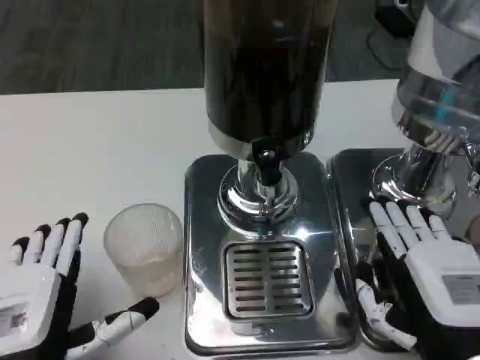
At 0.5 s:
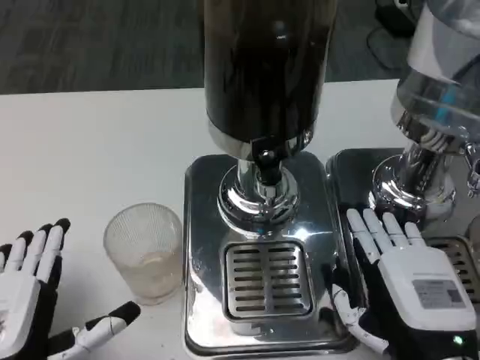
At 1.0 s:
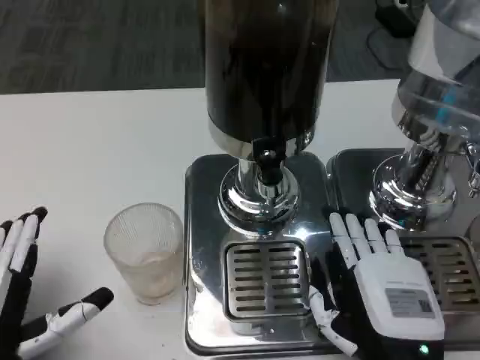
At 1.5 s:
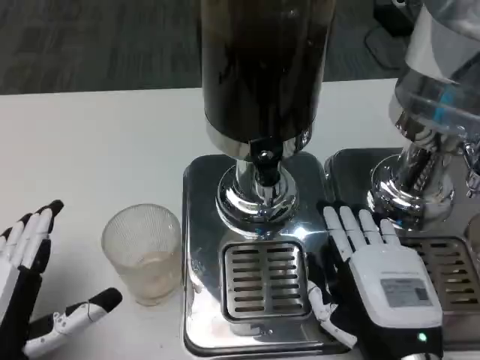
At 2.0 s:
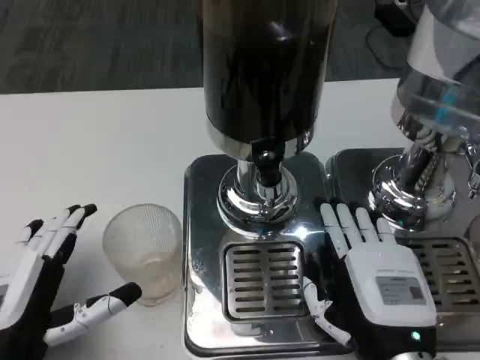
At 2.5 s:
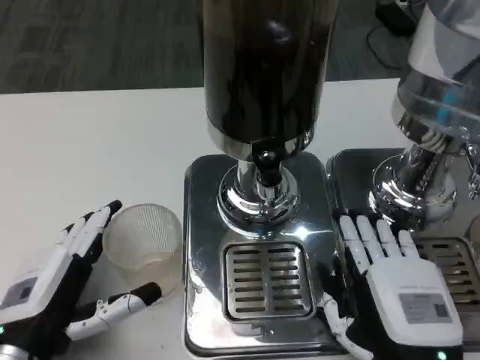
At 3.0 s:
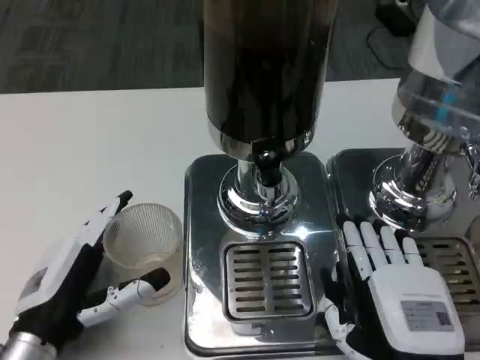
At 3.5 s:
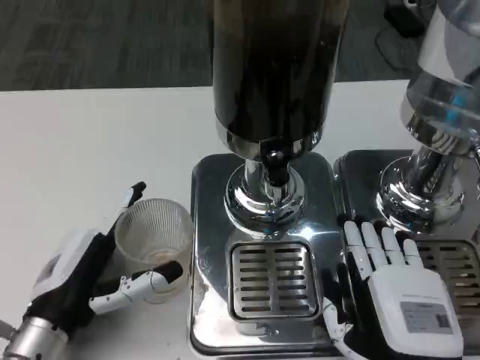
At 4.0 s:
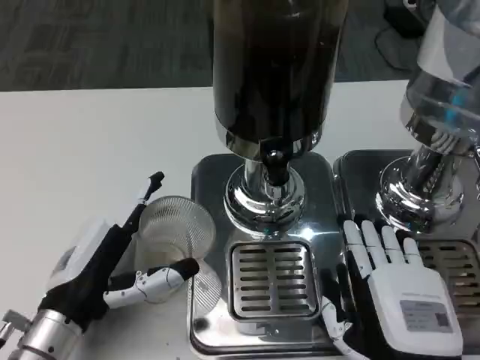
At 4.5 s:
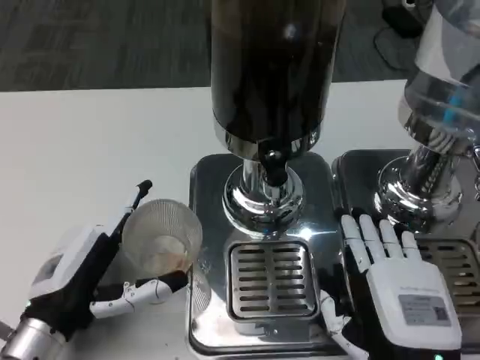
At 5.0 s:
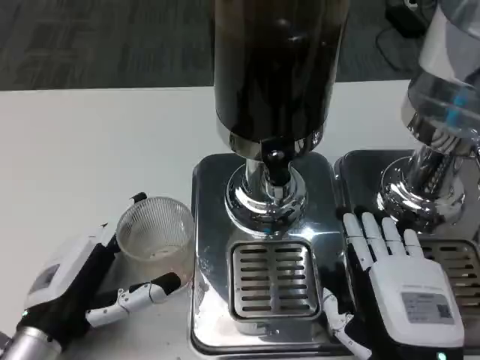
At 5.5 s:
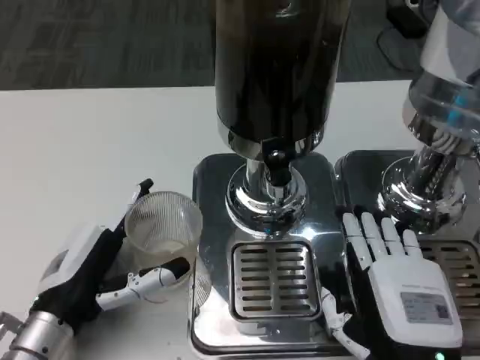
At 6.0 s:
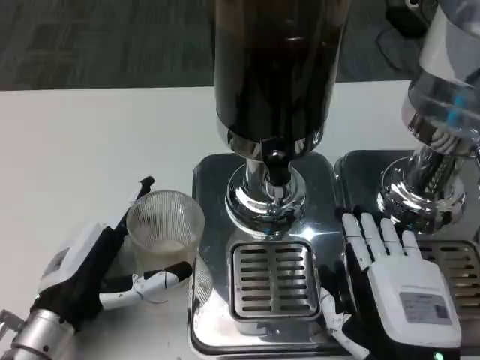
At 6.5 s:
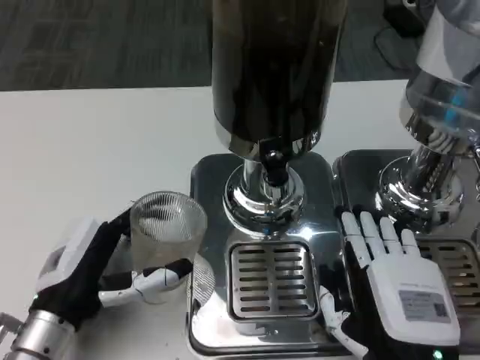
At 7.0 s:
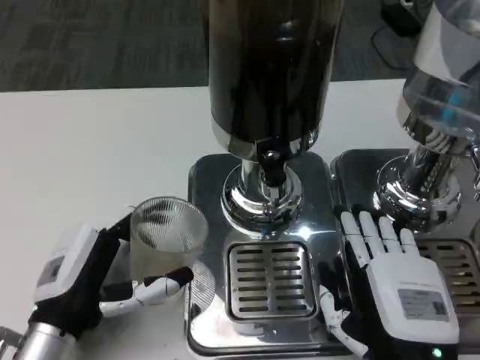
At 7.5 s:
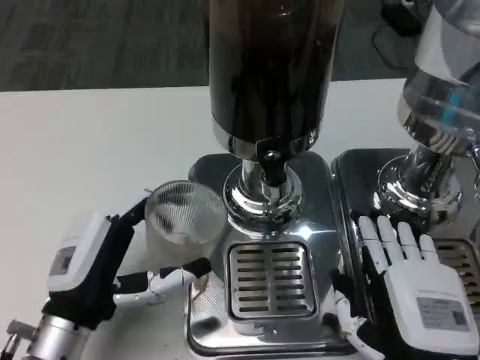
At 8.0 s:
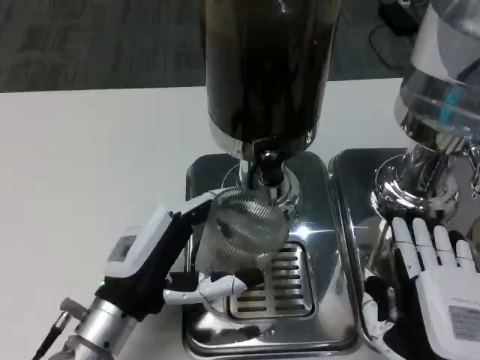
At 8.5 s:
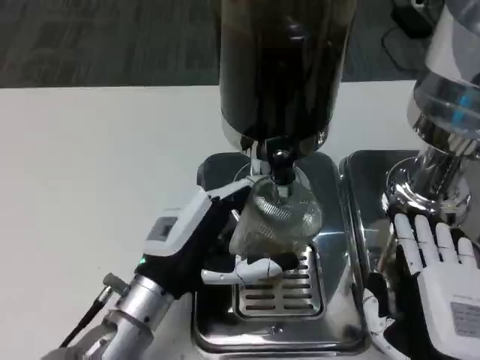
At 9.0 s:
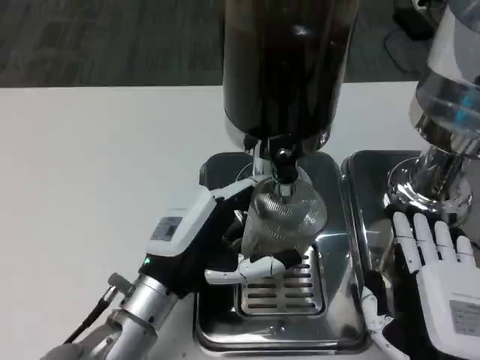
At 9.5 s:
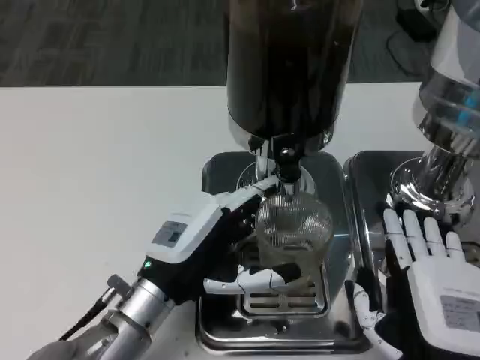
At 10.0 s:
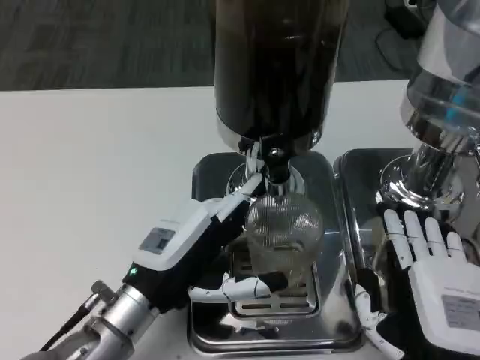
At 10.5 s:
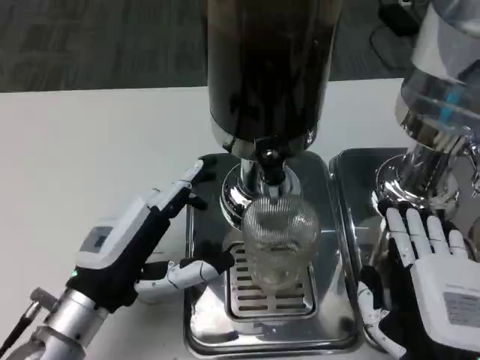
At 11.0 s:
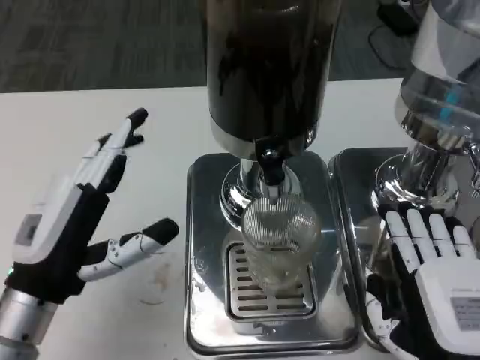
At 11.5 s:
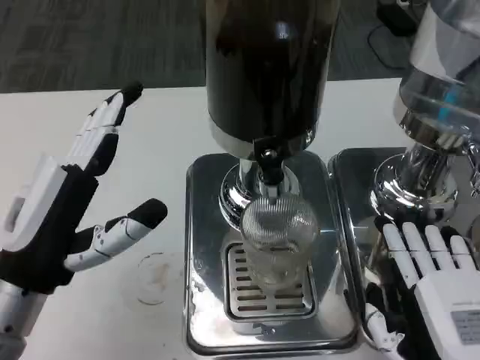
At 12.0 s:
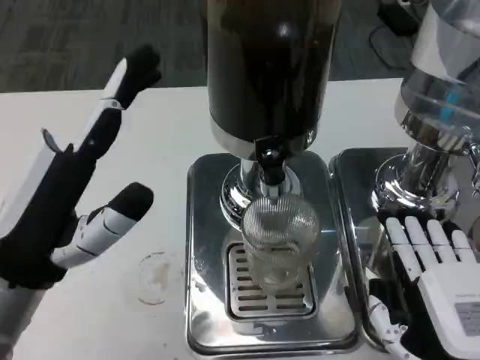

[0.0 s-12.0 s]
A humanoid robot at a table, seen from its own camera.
Task of the whole recording: Grasp the cup under the faucet to collect the drink, then remove the cup.
0.0 to 2.0 s: The right hand moves to the left, roughly 5 cm. Meanwhile the left hand changes place by roughly 5 cm.
2.0 to 4.0 s: The left hand shifts roughly 5 cm forward.
4.0 to 6.0 s: There are only small adjustments of the hands.
6.0 to 8.0 s: The left hand shifts approximately 5 cm to the right.
10.0 to 12.0 s: The left hand heads upward and to the left, covering approximately 10 cm.

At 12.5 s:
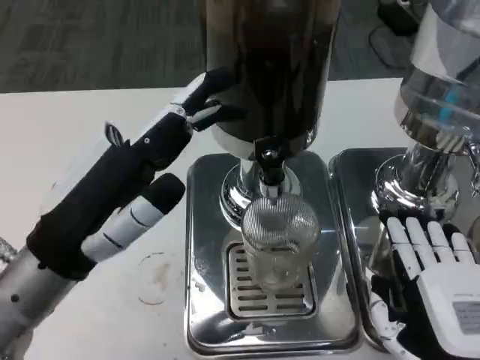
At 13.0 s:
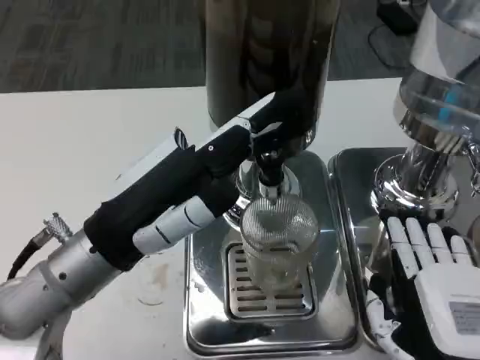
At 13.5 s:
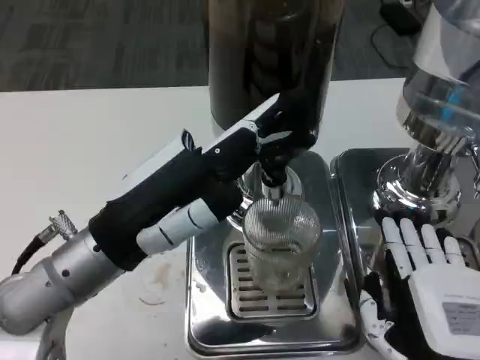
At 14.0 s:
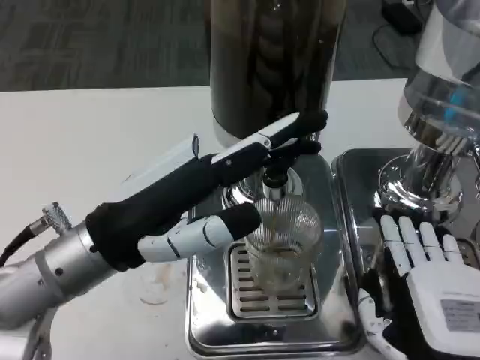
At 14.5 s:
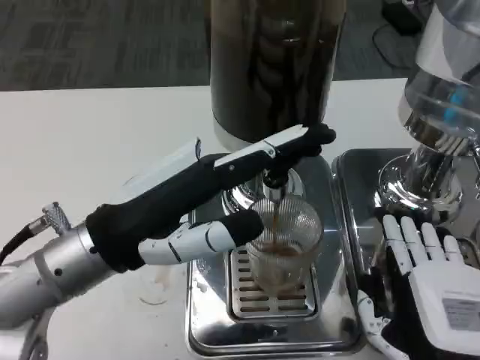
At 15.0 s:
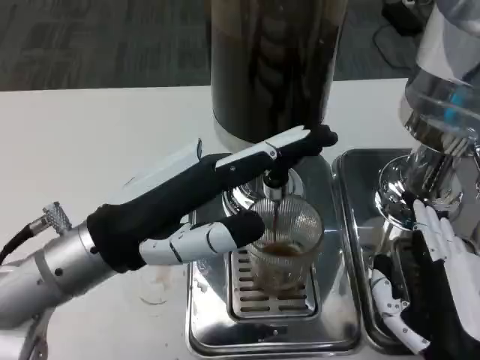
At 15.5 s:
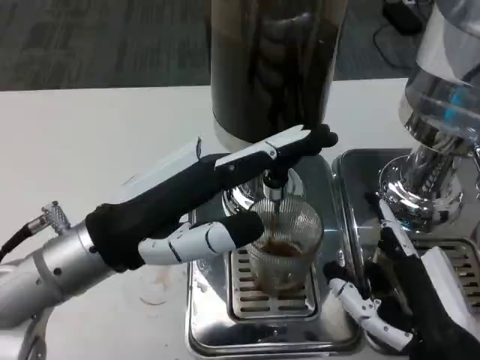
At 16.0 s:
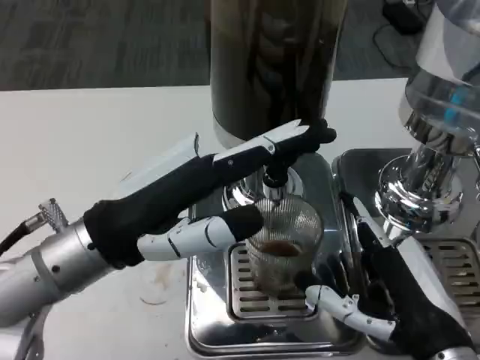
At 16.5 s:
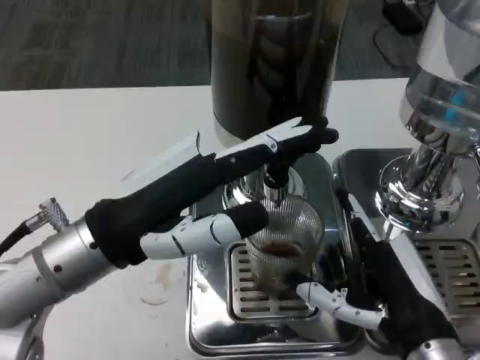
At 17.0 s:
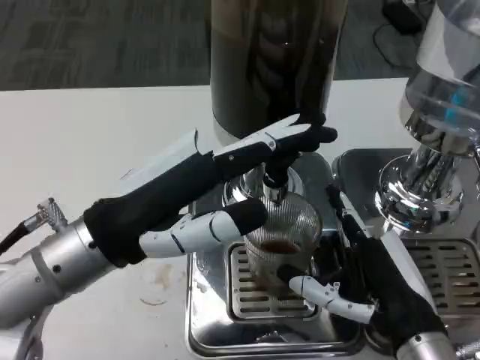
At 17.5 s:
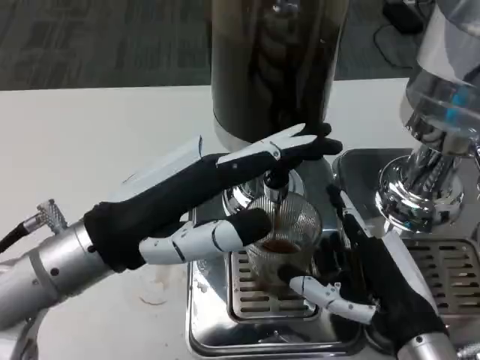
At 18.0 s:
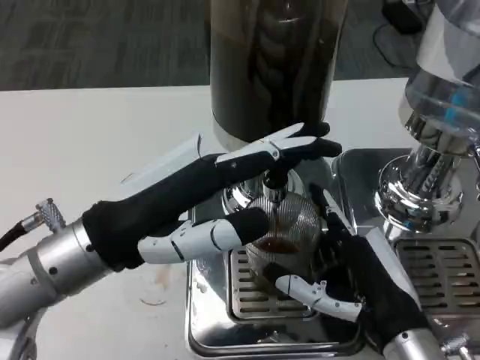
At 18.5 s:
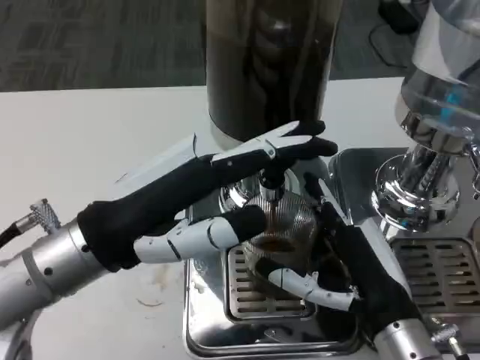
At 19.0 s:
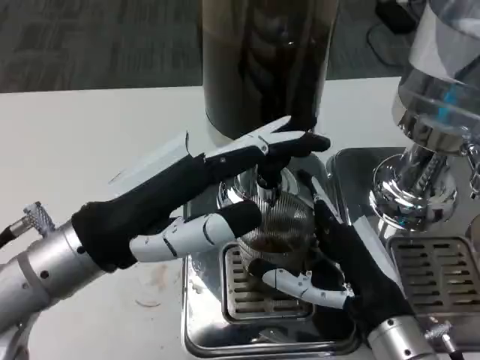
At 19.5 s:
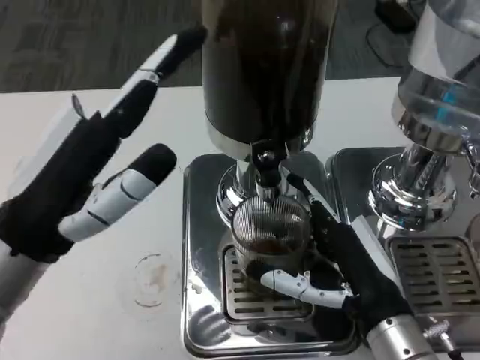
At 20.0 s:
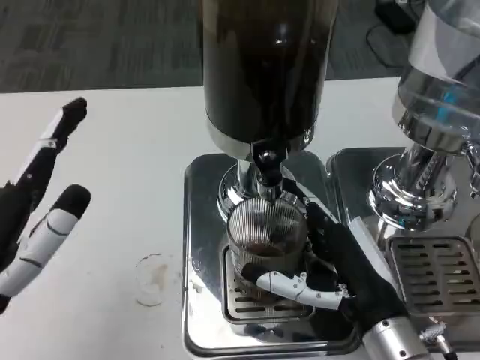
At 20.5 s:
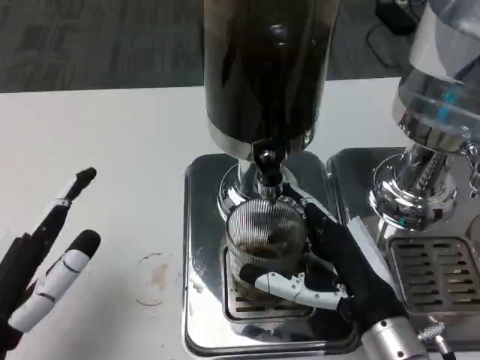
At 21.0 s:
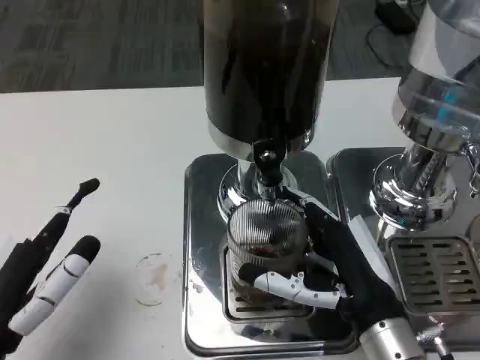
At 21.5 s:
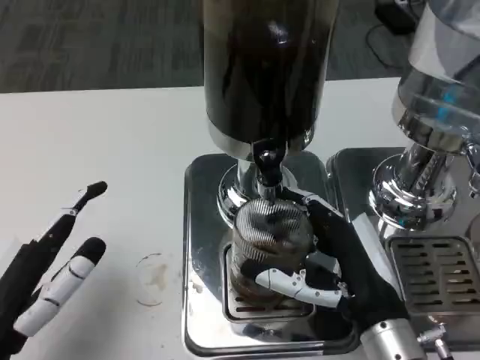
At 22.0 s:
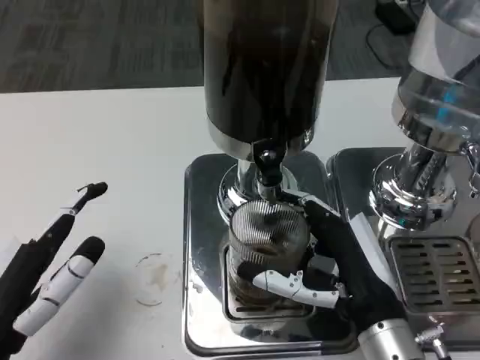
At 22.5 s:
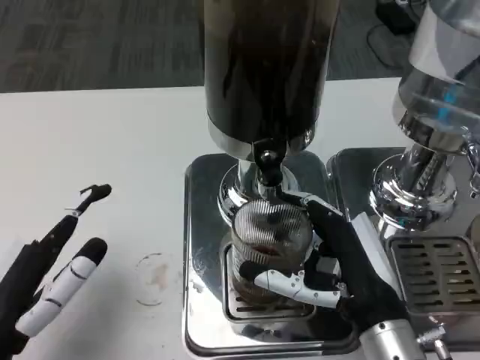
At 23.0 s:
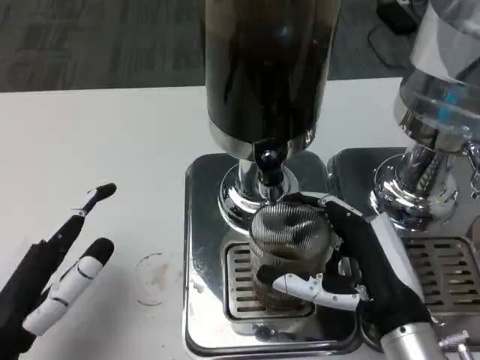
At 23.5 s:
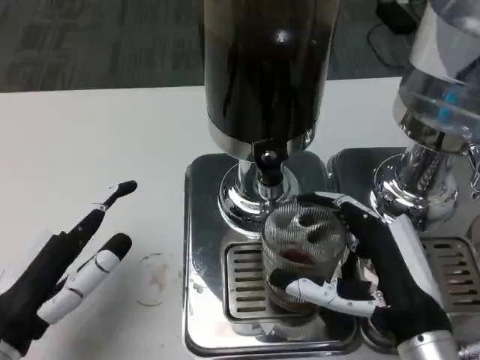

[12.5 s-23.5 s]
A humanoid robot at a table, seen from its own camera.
Task of the whole recording: Grasp the cup under the faucet to collect the drink, then remove the cup.
16.0 to 18.0 s: The hands make only small movements.
18.0 to 20.0 s: The left hand shifts about 10 cm backward and to the left.
20.0 to 21.5 s: The hands make only small movements.

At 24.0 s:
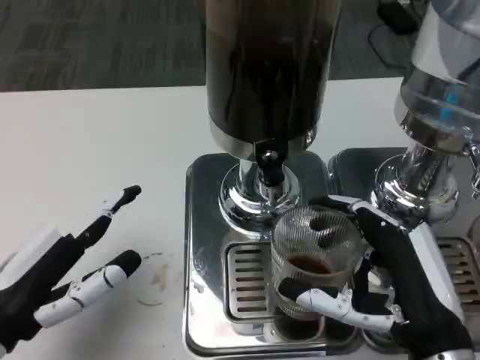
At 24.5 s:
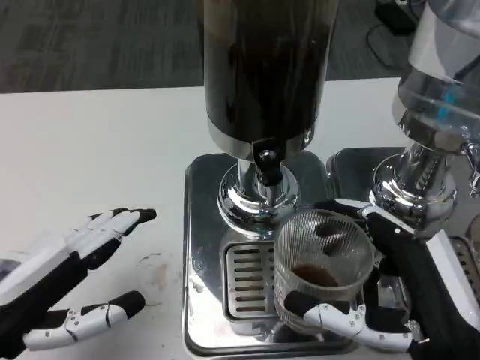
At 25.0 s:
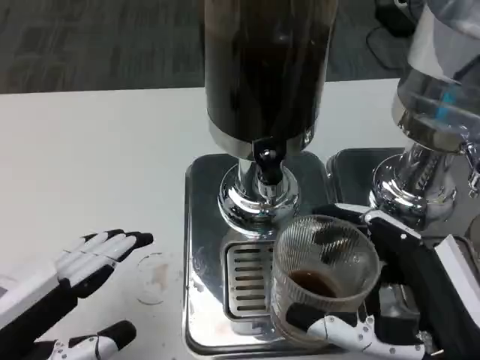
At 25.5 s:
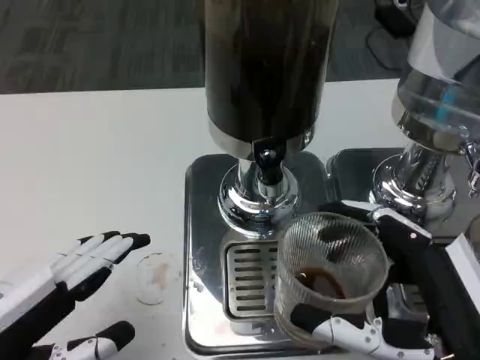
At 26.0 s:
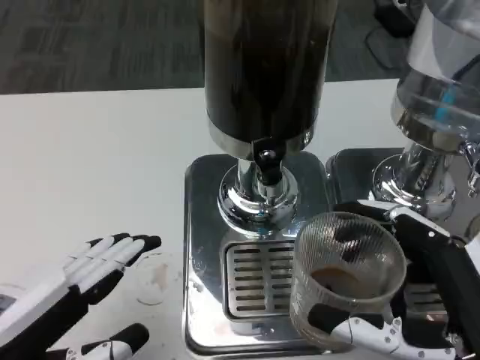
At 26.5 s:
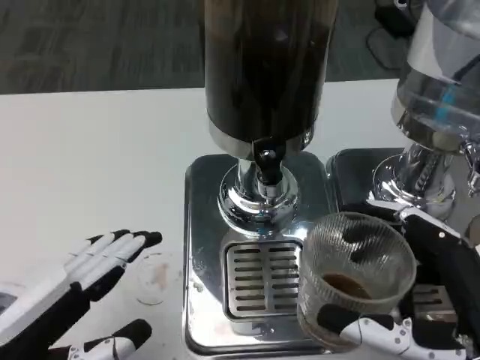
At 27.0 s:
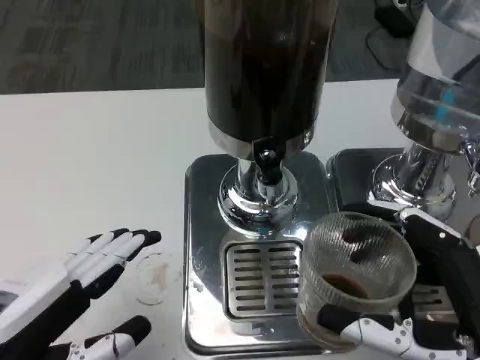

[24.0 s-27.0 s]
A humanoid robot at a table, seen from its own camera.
Task of the whole recording: Grasp the cup under the faucet to collect the drink, then remove the cup.
24.0 to 25.5 s: The right hand ends up about 5 cm from where it was. The left hand shifts by roughly 5 cm.
25.5 to 27.0 s: There are only small adjustments of the hands.
